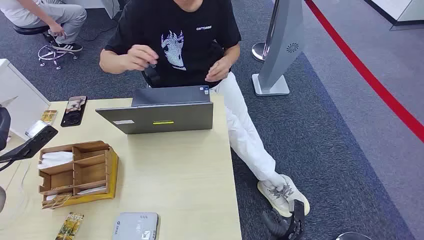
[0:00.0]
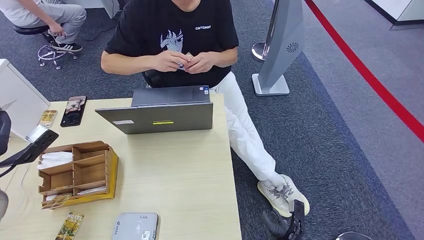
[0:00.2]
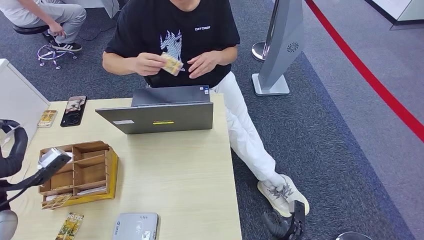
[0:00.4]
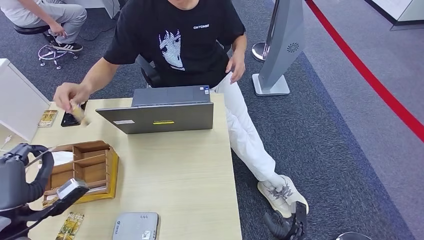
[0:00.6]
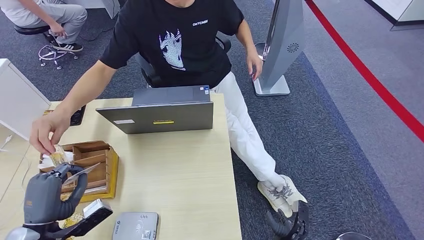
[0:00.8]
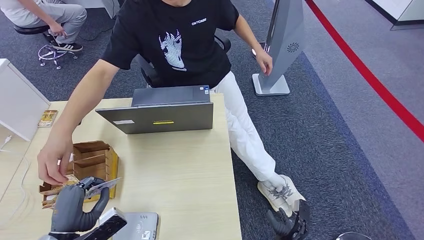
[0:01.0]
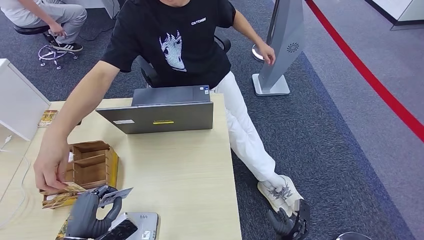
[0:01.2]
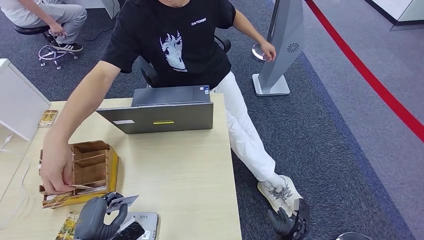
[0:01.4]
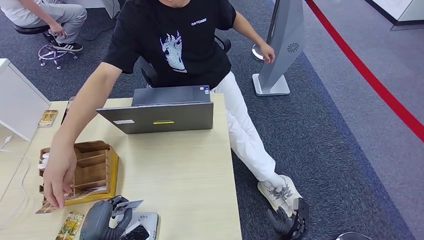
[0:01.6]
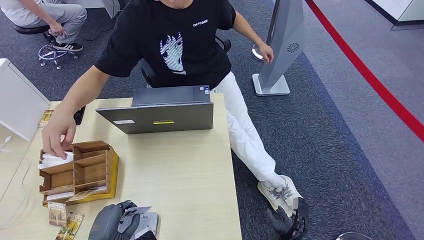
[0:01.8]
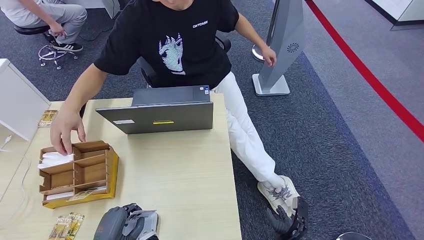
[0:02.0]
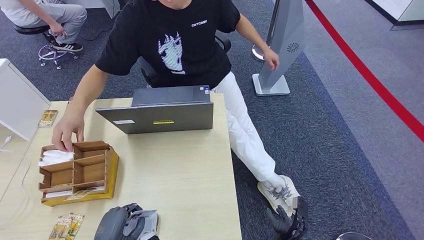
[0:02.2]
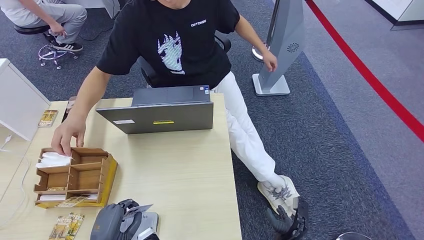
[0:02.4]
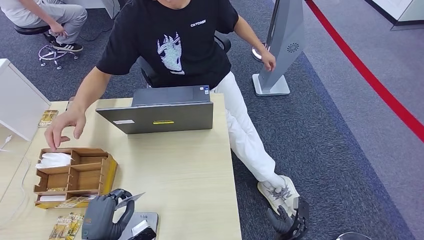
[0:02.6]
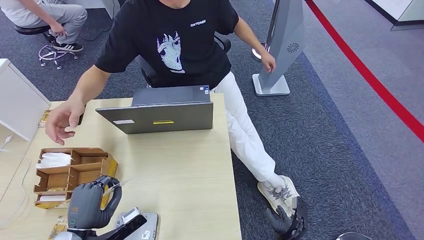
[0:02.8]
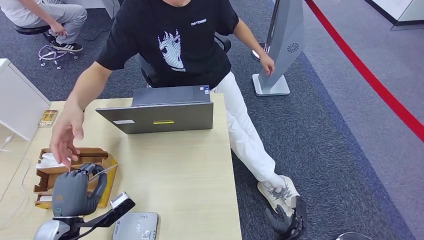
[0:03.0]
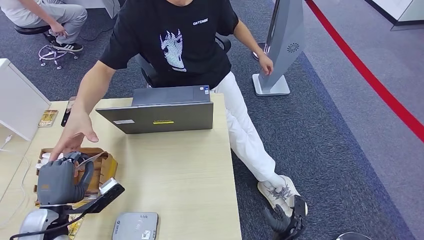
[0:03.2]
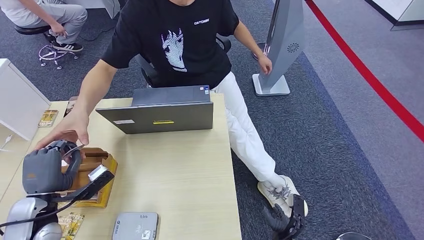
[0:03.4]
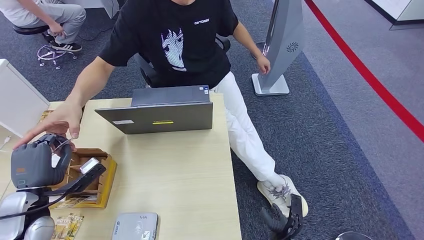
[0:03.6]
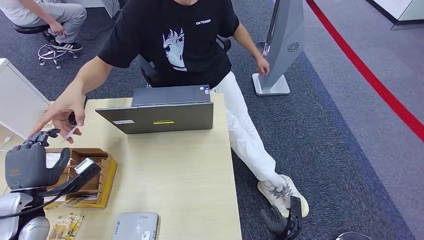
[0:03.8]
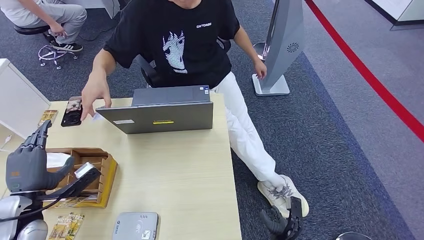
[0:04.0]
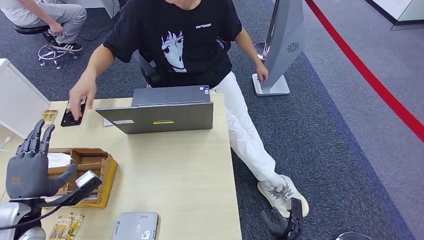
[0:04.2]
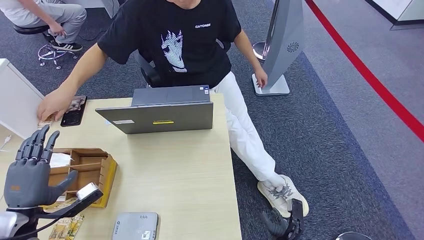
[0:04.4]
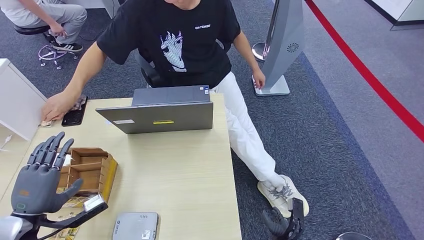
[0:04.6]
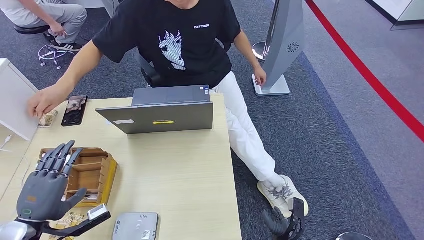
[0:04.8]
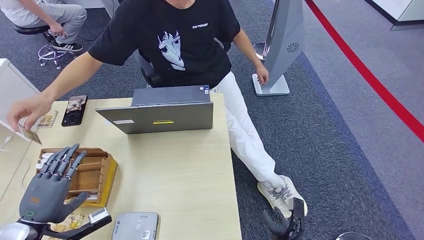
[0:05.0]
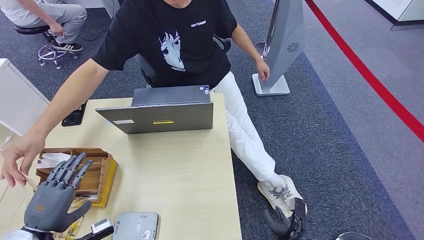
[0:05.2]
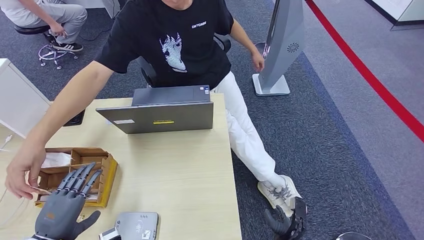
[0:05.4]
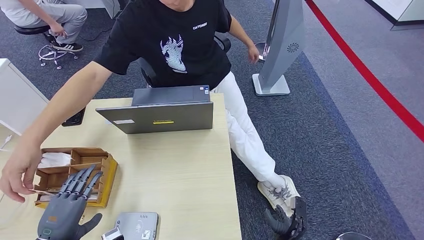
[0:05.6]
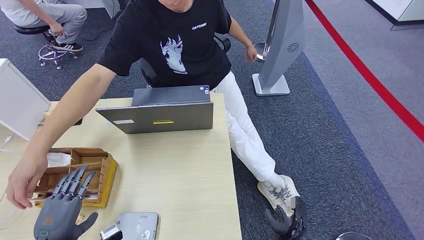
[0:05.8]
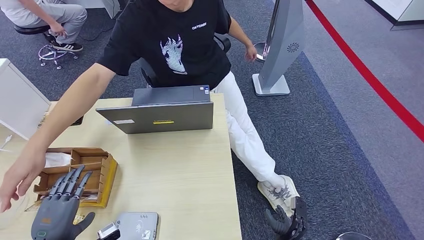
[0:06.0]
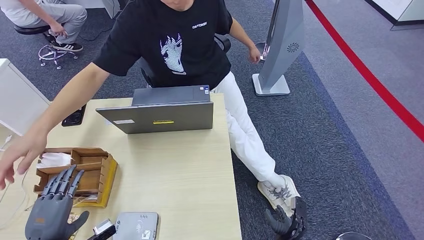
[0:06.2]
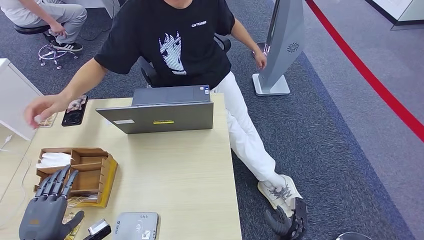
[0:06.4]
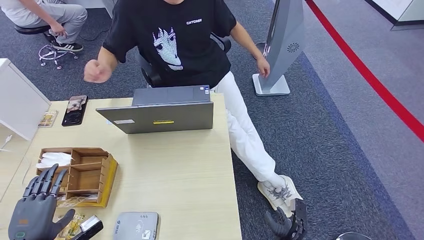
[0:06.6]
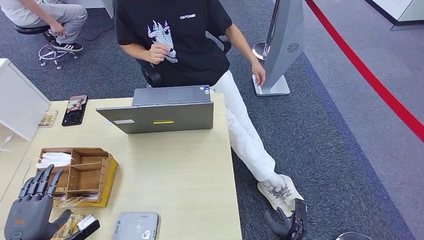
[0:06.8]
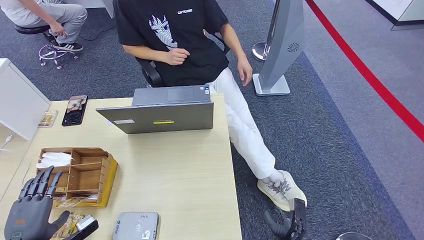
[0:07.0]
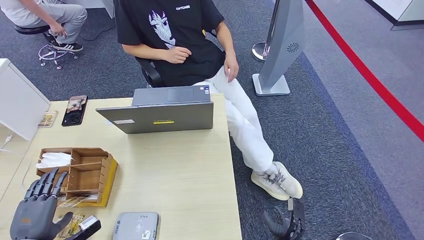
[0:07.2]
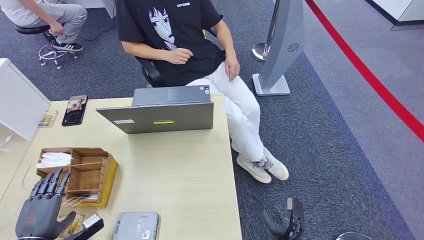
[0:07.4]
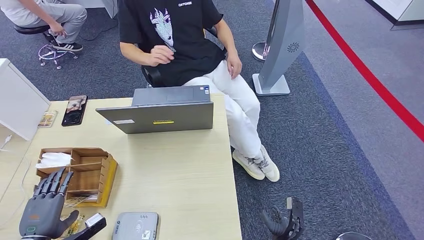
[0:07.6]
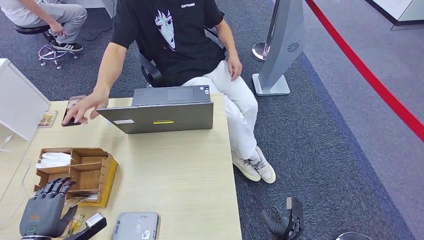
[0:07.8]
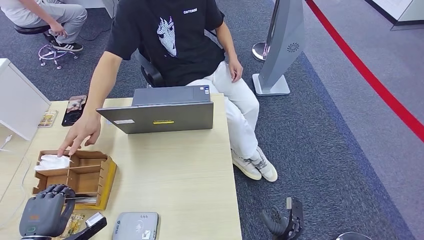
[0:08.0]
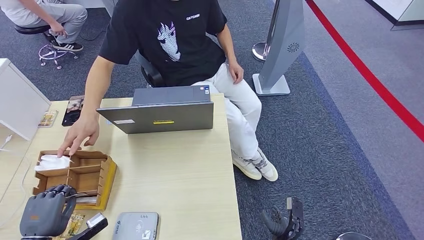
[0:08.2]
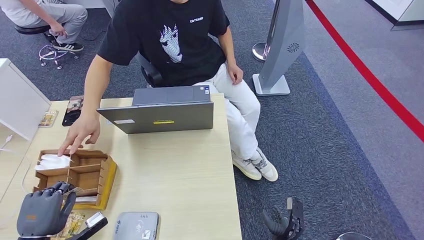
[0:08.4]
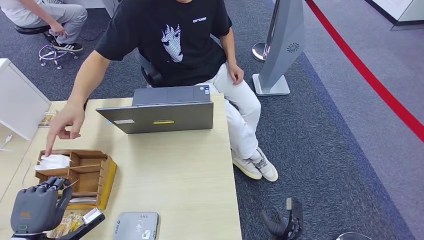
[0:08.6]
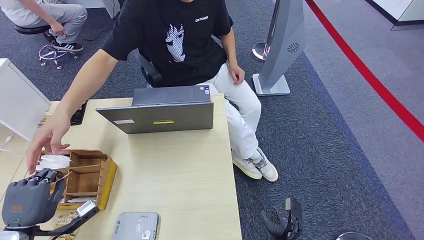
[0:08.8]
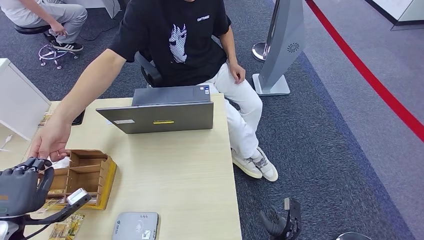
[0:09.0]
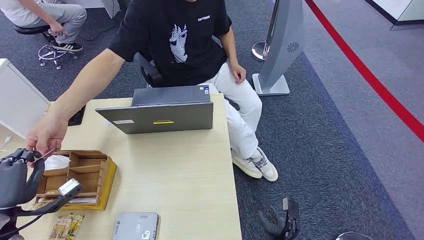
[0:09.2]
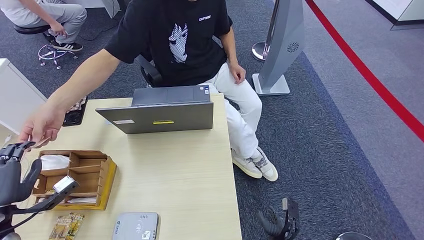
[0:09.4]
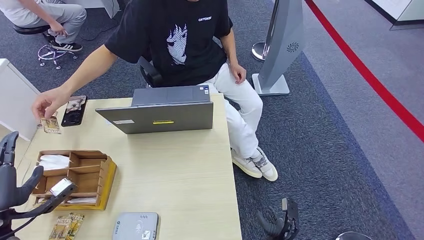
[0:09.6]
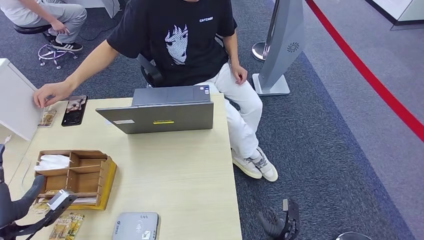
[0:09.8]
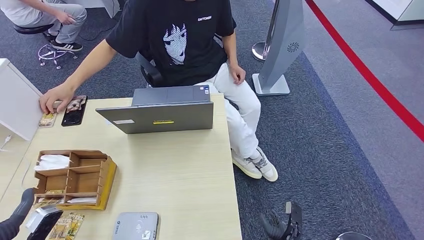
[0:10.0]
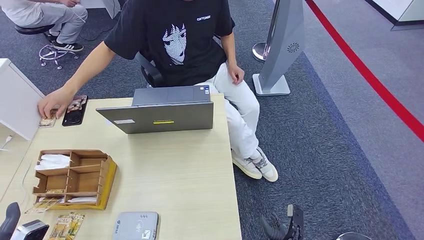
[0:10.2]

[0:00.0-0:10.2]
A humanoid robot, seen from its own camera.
Step, 0:00.0 to 0:00.6: Take the ID card from the person's hand.
Step, 0:00.8 to 0:02.2: Place the ID card on the card reader.
Step, 0:02.4 to 0:05.4: Hand the ID card to the person.
Step, 0:05.6 to 0:08.4: Pick up the room key from the key card box.
Step, 0:08.6 to 0:10.2: Hand the room key to the person.
0:01.4 to 0:03.0: The left hand shifts some 5 cm forward.
0:03.0 to 0:04.4: The left hand goes about 10 cm to the left.
0:04.4 to 0:05.8: The left hand shifts some 10 cm backward.
0:05.8 to 0:07.2: The left hand shifts roughly 5 cm to the left.
0:07.2 to 0:08.8: The hands move only a little.
0:08.8 to 0:10.2: The left hand shifts approximately 5 cm backward.
